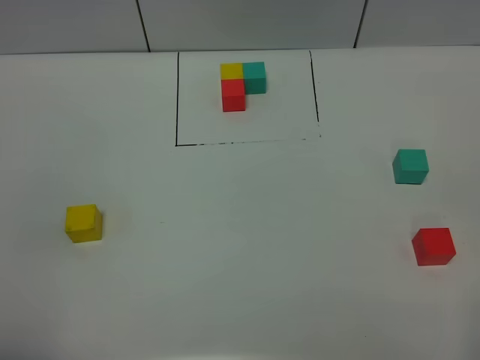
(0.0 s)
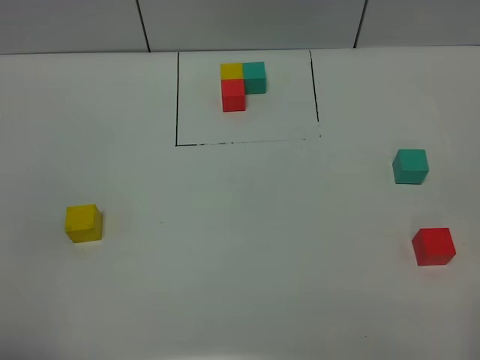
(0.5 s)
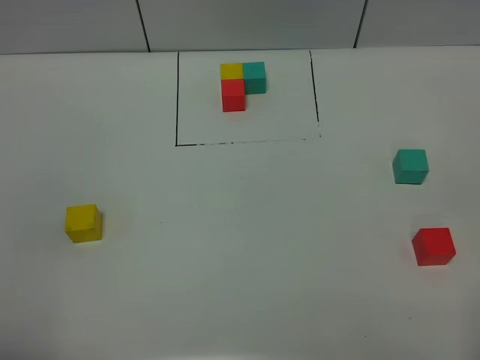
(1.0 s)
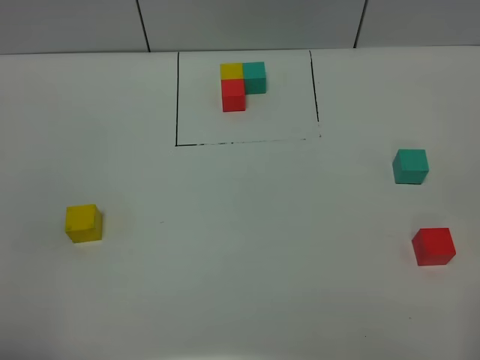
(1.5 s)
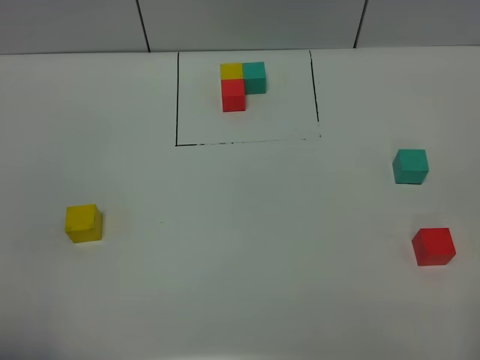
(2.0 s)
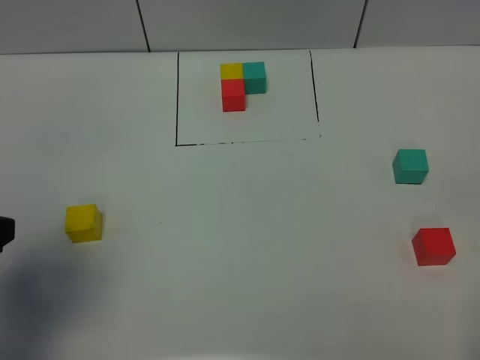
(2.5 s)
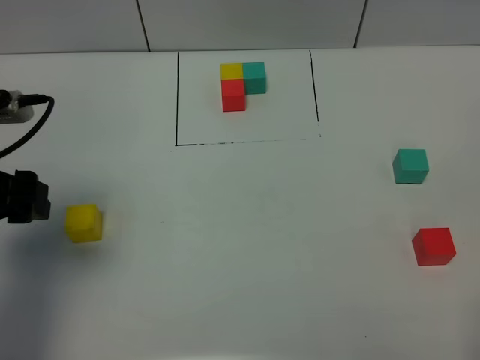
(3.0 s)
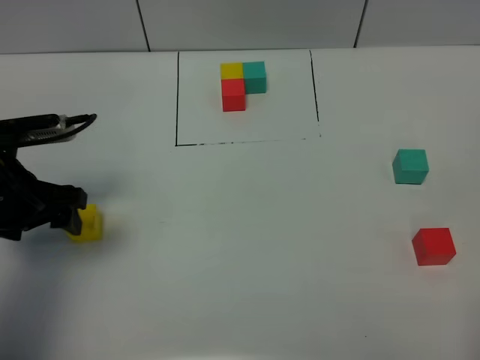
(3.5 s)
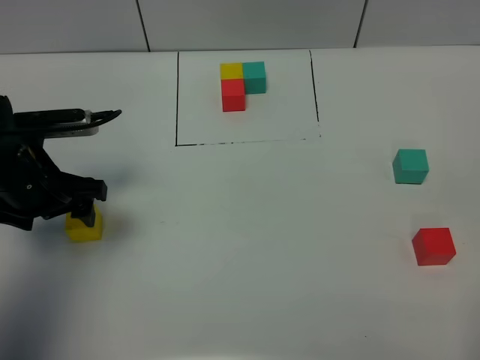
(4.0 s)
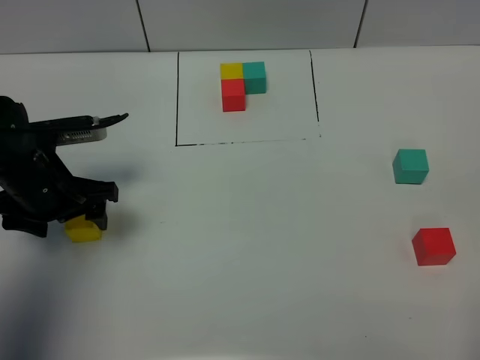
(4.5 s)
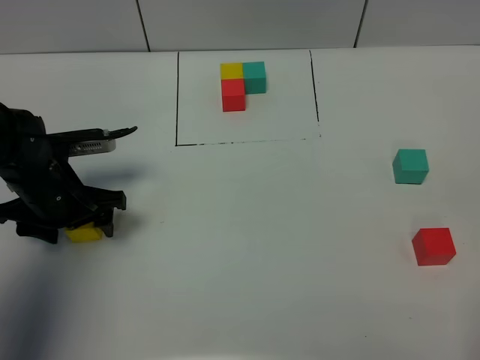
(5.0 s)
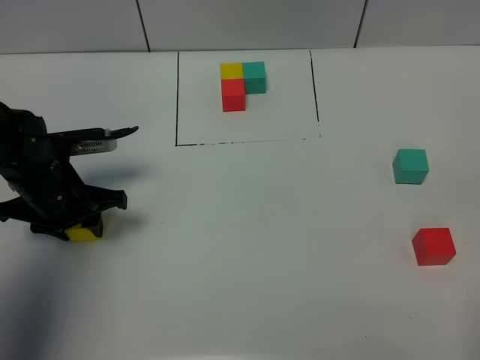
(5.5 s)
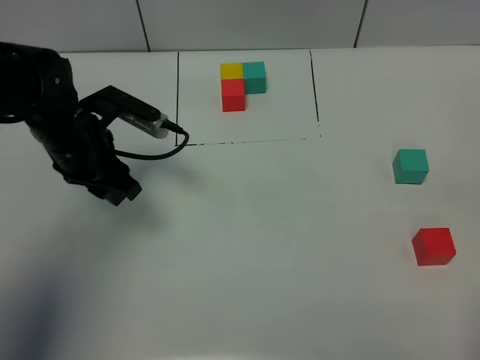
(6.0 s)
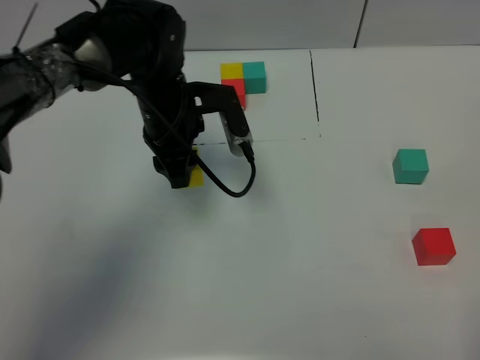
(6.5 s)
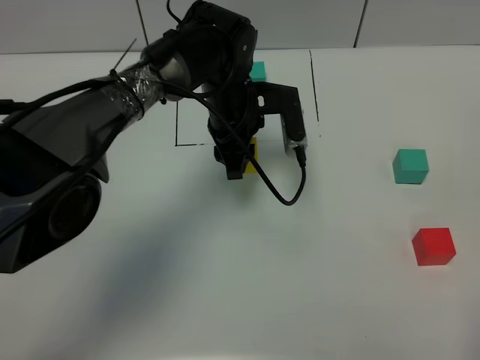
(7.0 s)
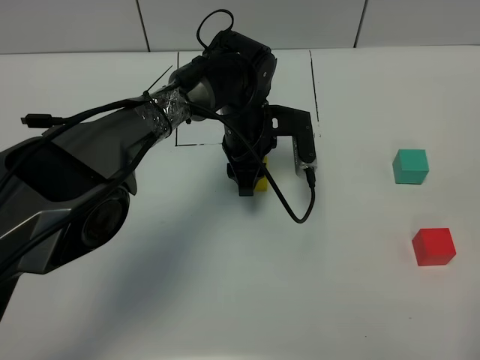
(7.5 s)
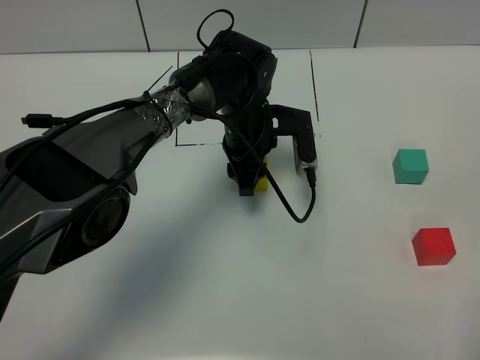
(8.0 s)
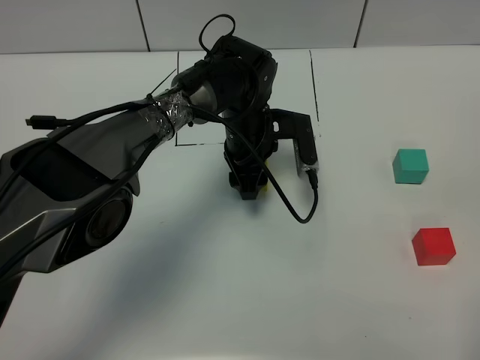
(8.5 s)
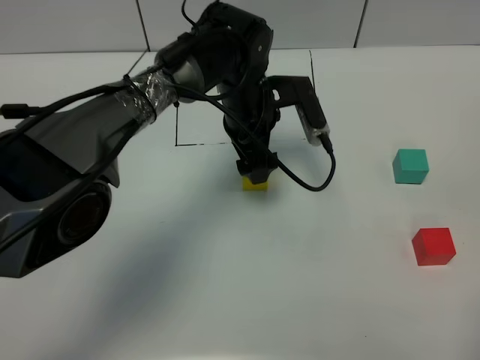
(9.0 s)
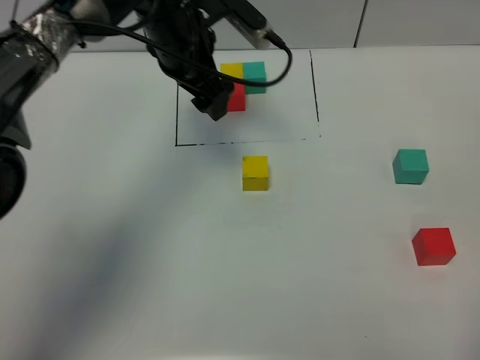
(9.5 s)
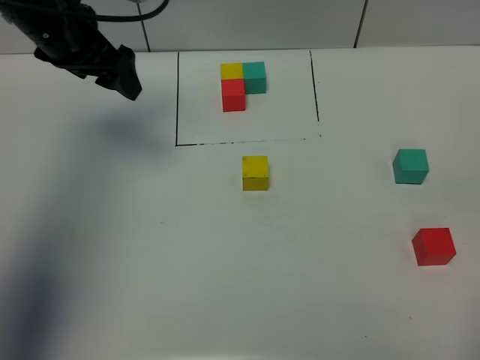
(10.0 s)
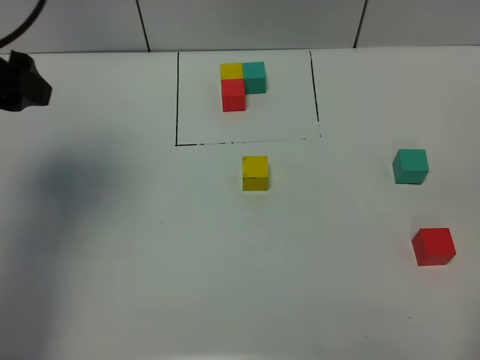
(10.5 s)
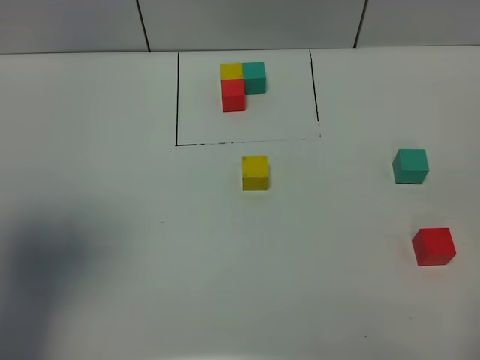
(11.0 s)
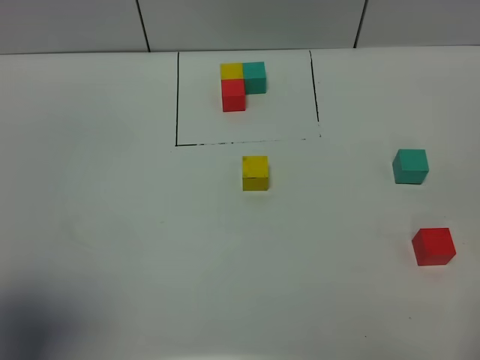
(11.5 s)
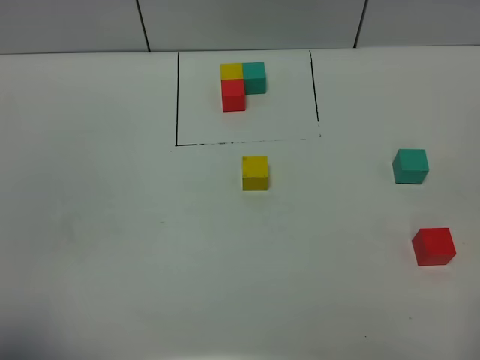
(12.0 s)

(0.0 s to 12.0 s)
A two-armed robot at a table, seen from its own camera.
Task of the whole recording: According to the building block template in front, assemble the scattered blocks together.
Step, 0.0 s - 8.5 s: Put the yellow build block in the center of the table.
0.0 s - 2.0 s: Both grippers stay about where they are.
2.0 s - 4.0 s: The left gripper goes some 30 cm forward.
4.0 s - 6.0 s: The left gripper is displaced to the right and forward by some 5 cm, and closes its fingers.
6.0 s - 8.0 s: The left gripper travels to the right by approximately 20 cm.
8.0 s - 10.0 s: The left gripper moves to the left and upward, approximately 30 cm, and opens up.
10.0 s - 12.0 s: The left gripper heads backward, covering some 40 cm.

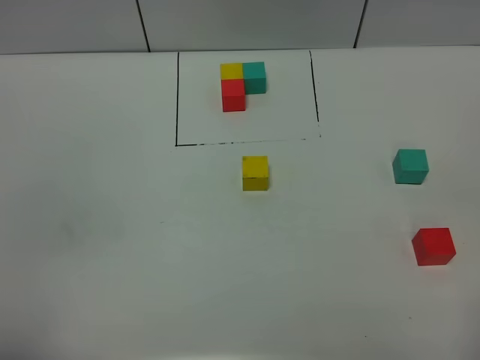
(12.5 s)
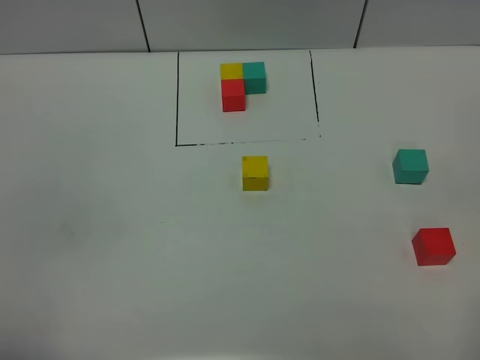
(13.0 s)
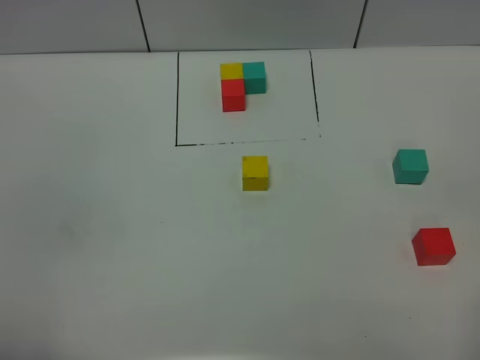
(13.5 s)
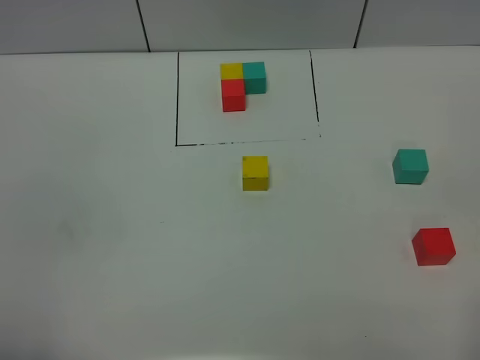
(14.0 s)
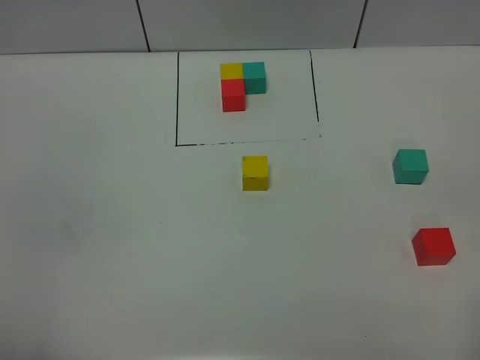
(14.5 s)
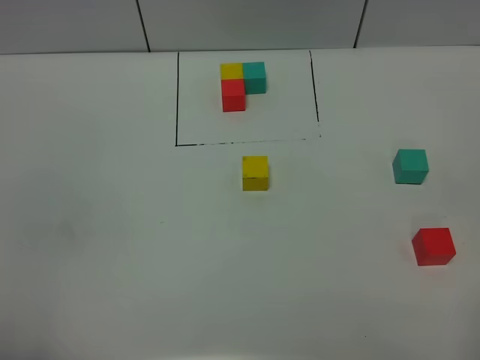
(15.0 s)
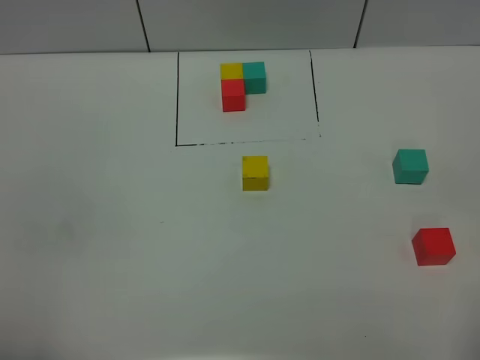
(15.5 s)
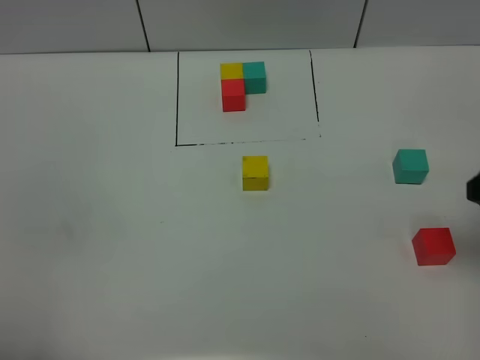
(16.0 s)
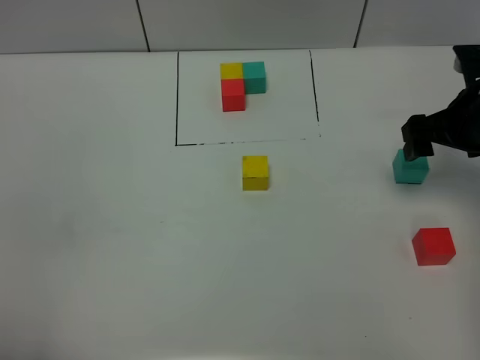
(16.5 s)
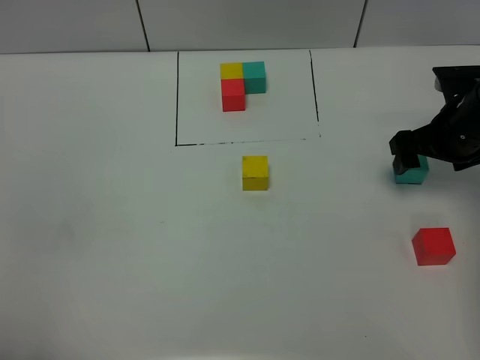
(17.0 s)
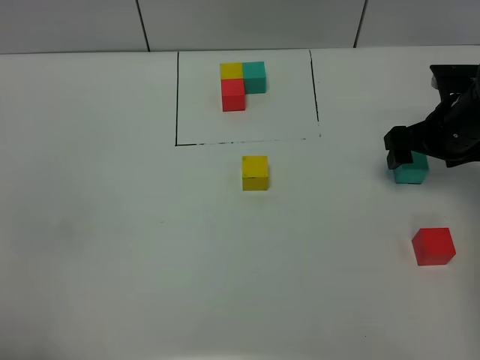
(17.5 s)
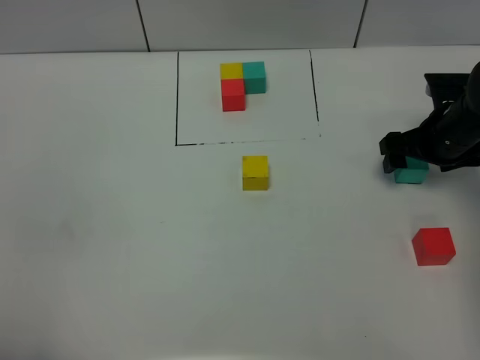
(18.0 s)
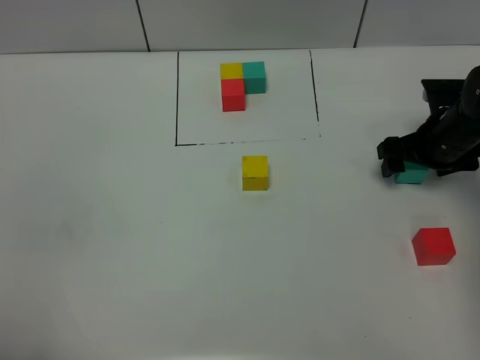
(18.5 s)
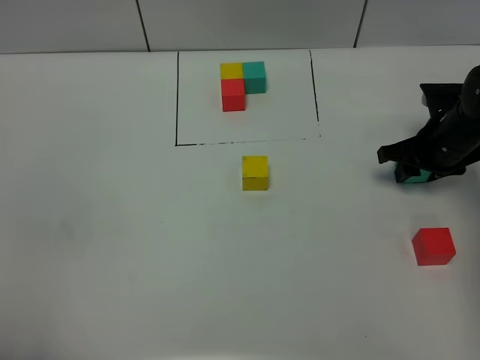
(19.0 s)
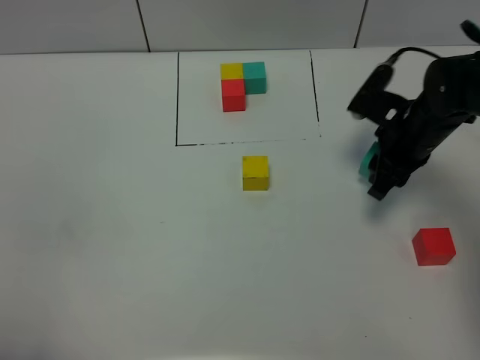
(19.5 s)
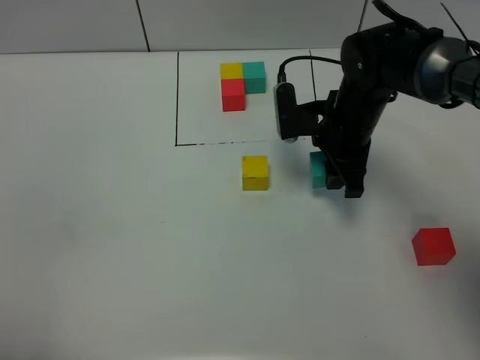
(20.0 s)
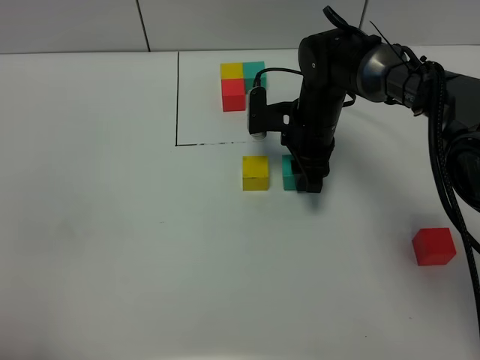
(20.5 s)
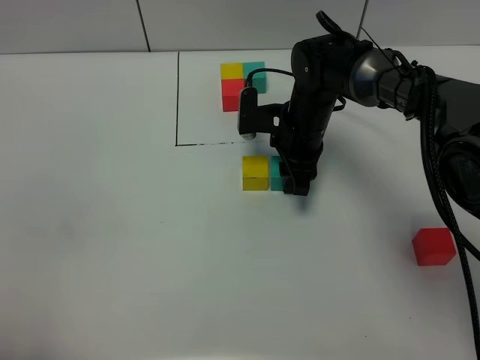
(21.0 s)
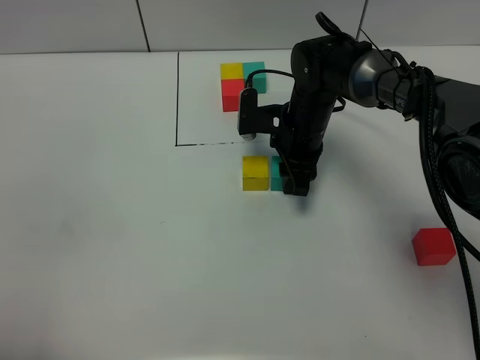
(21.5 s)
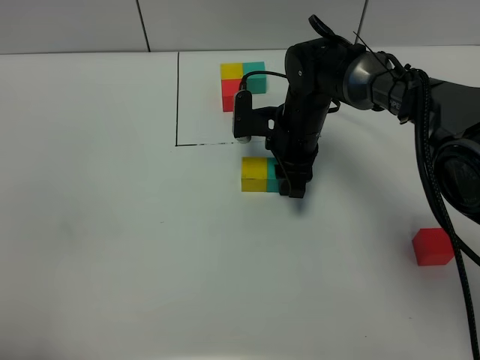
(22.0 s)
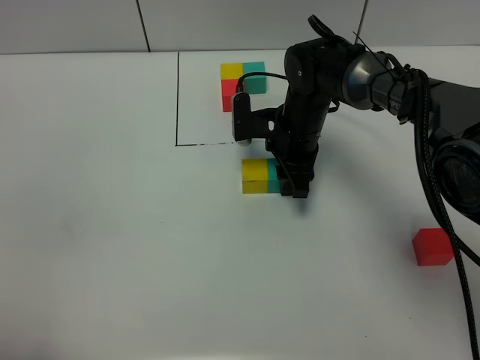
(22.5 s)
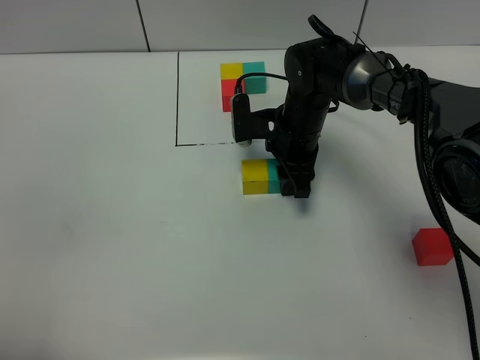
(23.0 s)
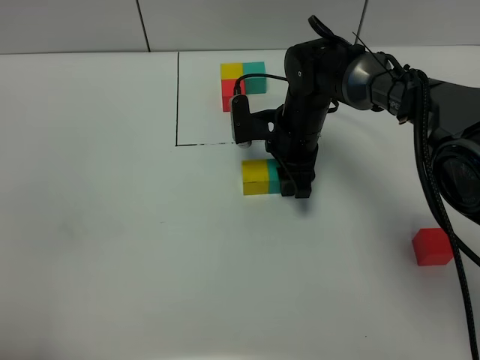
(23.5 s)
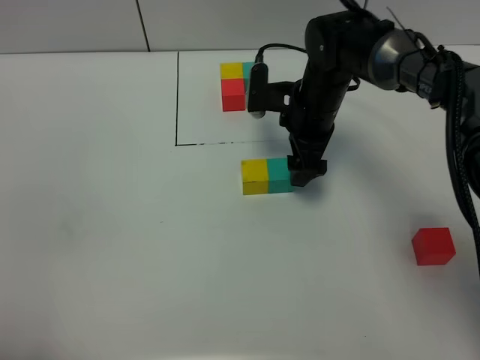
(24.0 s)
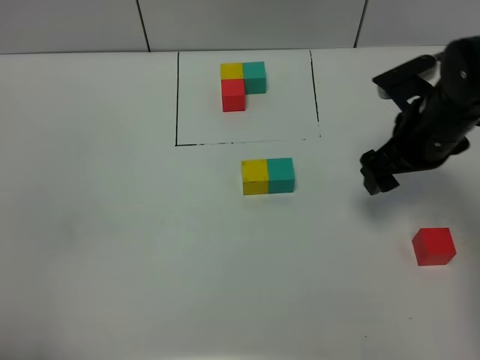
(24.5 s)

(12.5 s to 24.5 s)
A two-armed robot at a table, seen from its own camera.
Task of the whole recording: According to the building block template in front, assemble the scattered blocks together.
Step, 12.5 s - 23.5 s: Put the green build block on the right of the yellow build block.
14.5 s - 16.5 s: The right gripper moves forward, some 35 cm.
16.5 s - 18.5 s: The right gripper goes some 10 cm downward.
18.5 s - 20.5 s: The right gripper moves to the left, roughly 20 cm, and closes up.
20.5 s - 22.5 s: There are only small adjustments of the grippers.
22.5 s - 24.5 s: The right gripper moves to the right, backward and upward, roughly 20 cm, and opens.

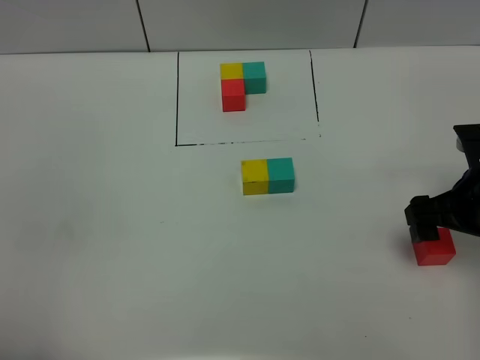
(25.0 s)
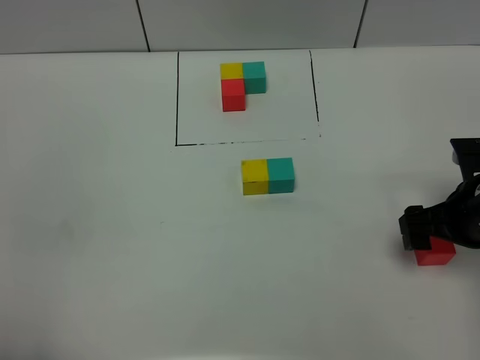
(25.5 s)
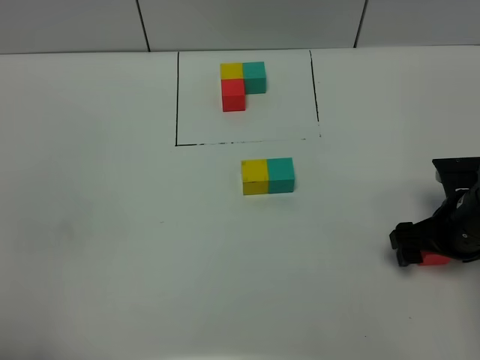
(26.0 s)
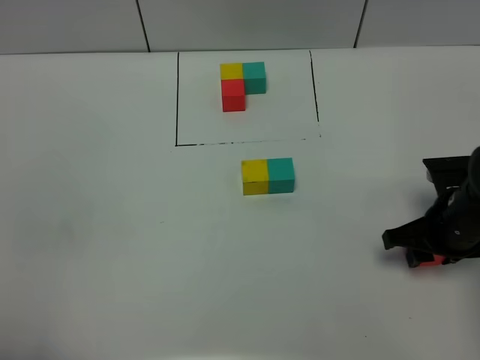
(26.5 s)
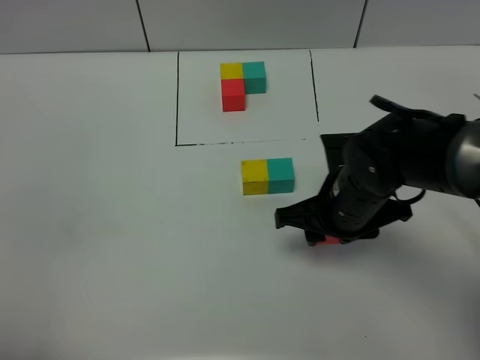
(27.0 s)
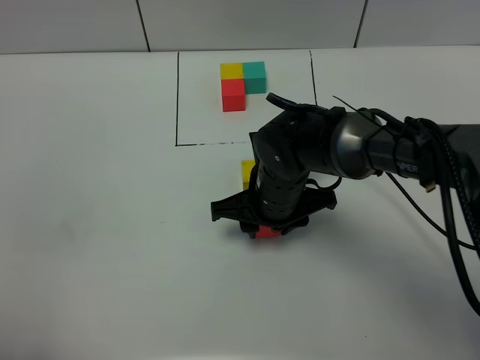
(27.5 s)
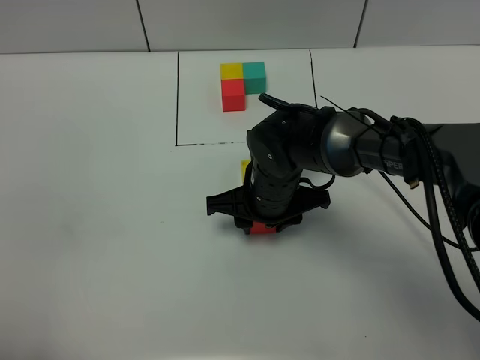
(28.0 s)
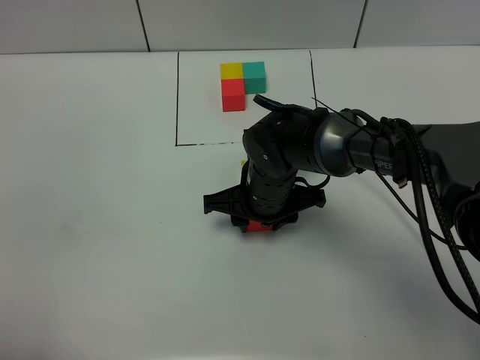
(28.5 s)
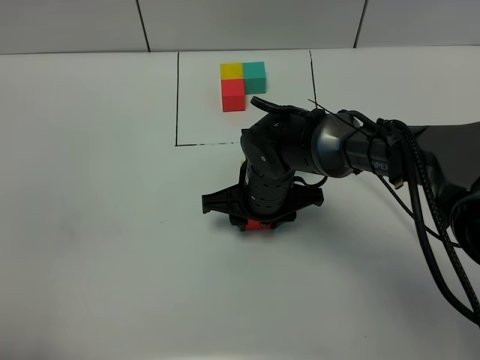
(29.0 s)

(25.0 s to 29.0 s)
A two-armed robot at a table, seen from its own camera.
Task of the whole recording: According to the building block template in front, assemble the scattered blocks together.
25.0 s - 27.0 s: The right gripper moves to the left, roughly 15 cm, and closes its fingers.
27.0 s - 29.0 s: The right gripper travels to the left by approximately 10 cm.
